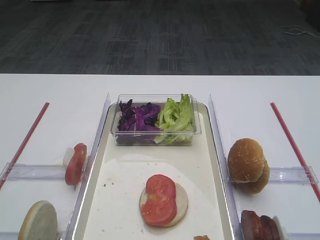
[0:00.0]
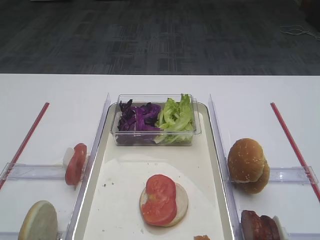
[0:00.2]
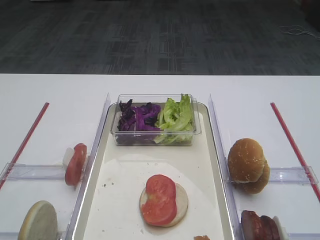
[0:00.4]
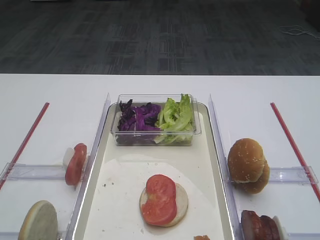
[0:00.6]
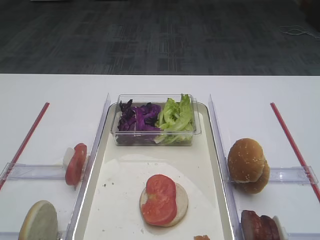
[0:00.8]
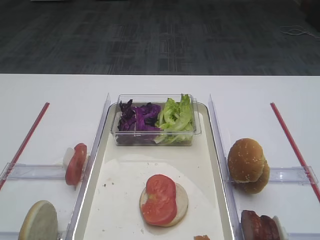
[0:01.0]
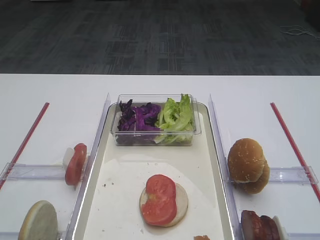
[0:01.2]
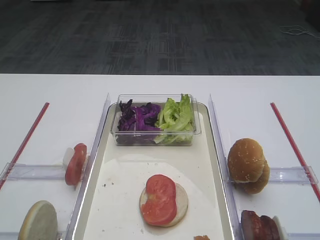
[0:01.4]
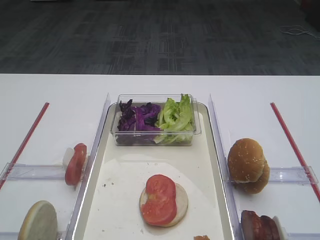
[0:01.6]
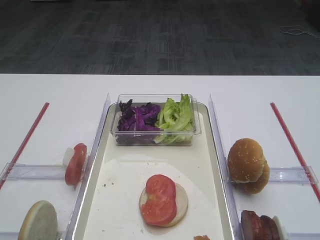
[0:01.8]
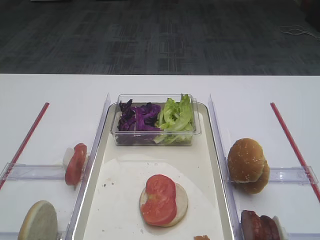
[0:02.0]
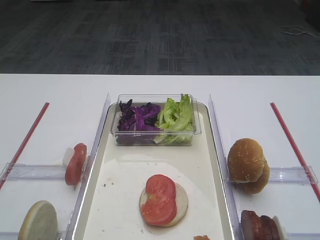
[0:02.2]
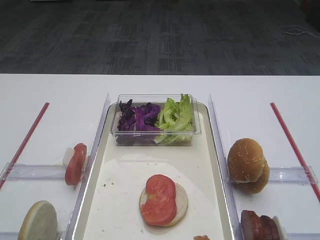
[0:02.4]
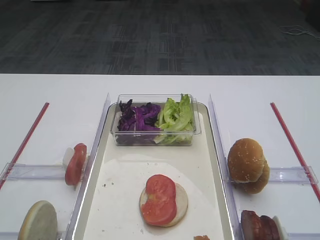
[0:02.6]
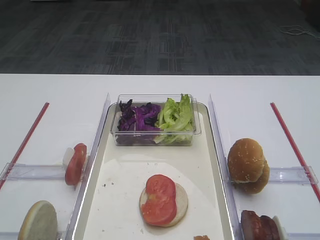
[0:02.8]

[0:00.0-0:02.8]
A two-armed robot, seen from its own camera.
0:01.4 to 0:02.8: The two grippers keep their place.

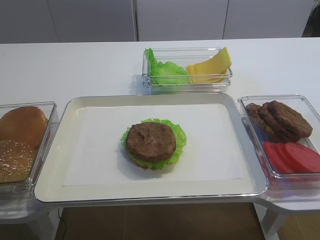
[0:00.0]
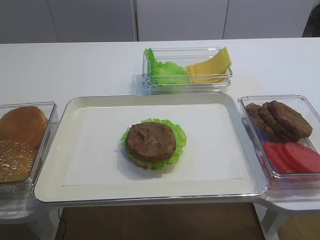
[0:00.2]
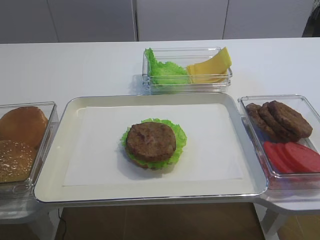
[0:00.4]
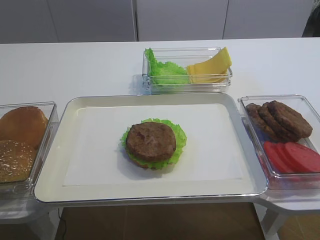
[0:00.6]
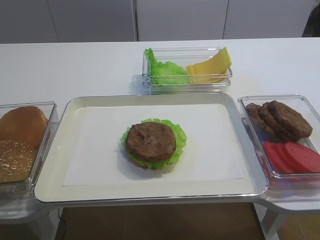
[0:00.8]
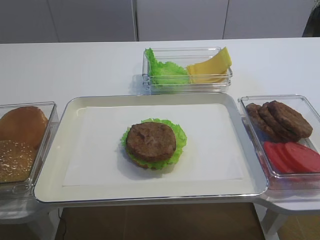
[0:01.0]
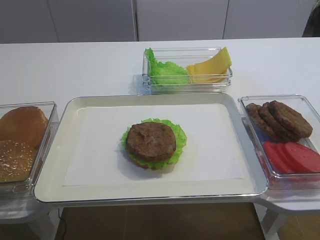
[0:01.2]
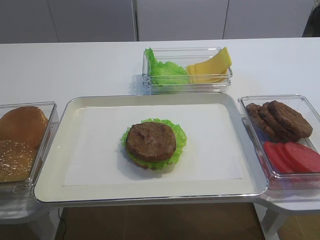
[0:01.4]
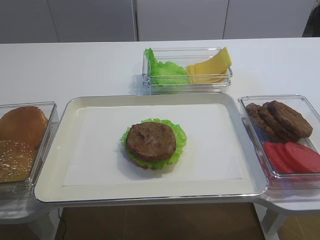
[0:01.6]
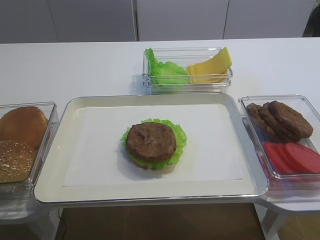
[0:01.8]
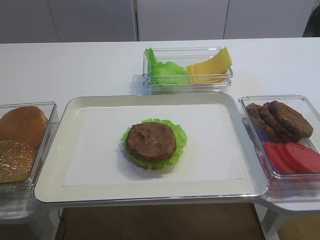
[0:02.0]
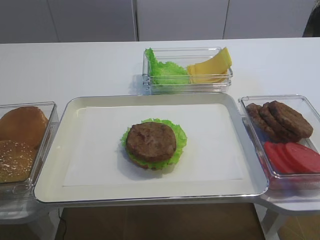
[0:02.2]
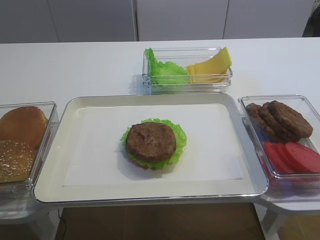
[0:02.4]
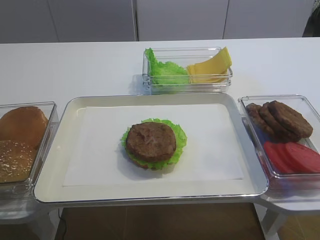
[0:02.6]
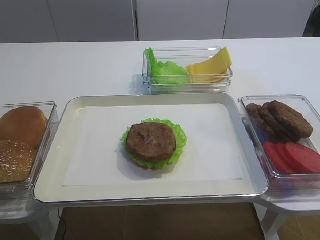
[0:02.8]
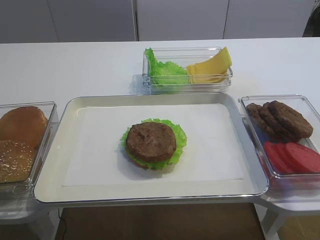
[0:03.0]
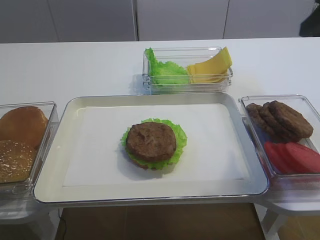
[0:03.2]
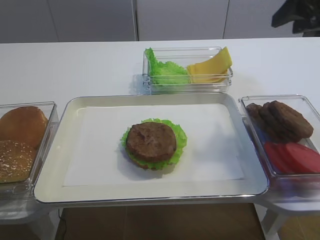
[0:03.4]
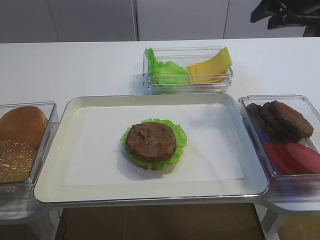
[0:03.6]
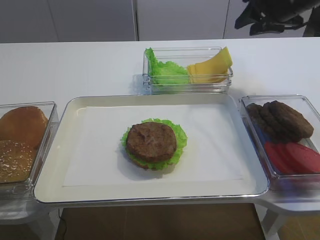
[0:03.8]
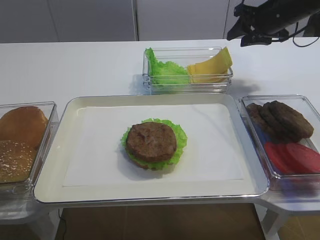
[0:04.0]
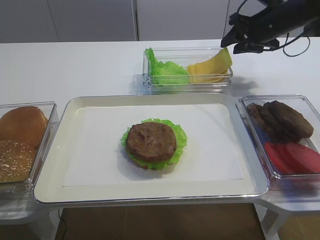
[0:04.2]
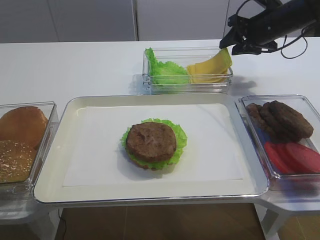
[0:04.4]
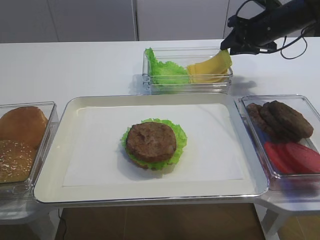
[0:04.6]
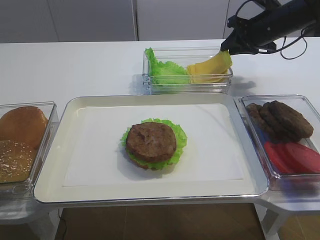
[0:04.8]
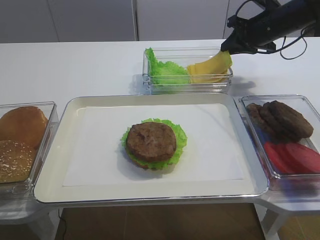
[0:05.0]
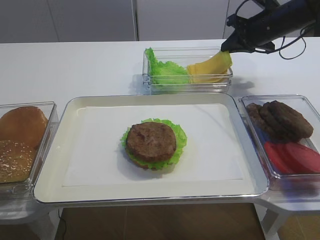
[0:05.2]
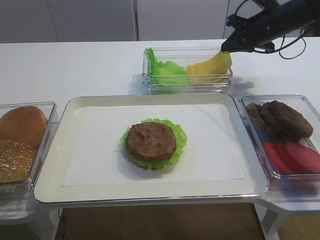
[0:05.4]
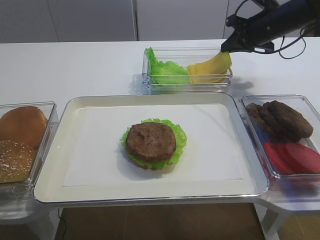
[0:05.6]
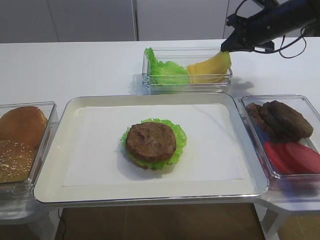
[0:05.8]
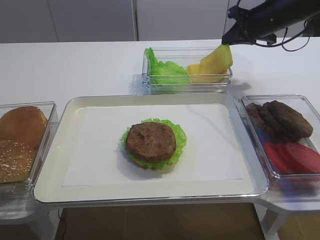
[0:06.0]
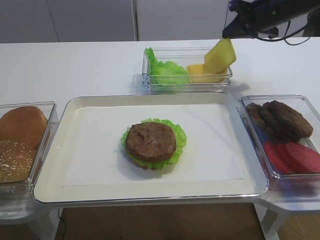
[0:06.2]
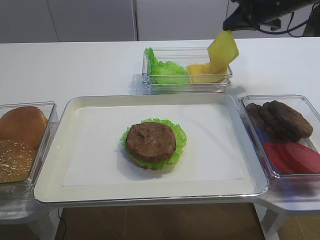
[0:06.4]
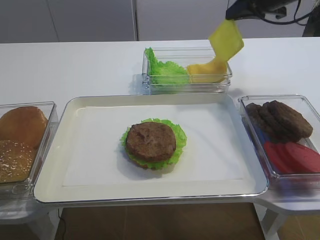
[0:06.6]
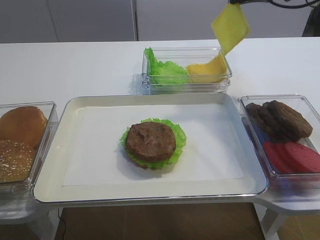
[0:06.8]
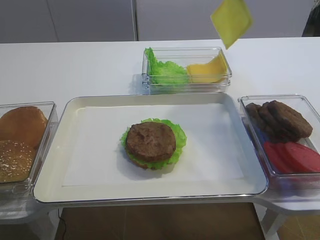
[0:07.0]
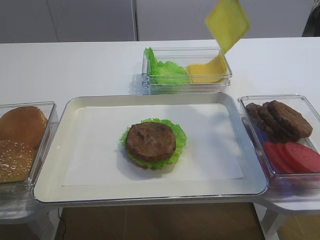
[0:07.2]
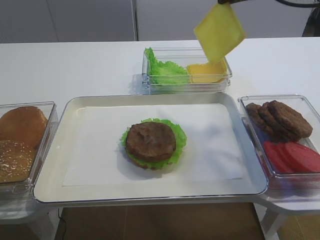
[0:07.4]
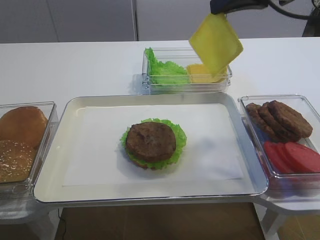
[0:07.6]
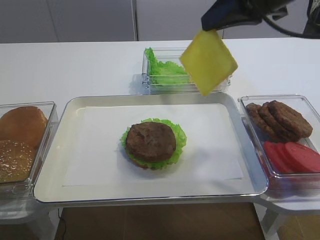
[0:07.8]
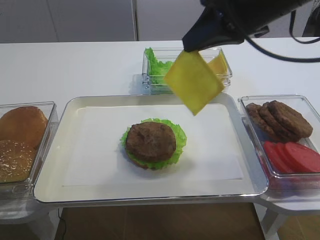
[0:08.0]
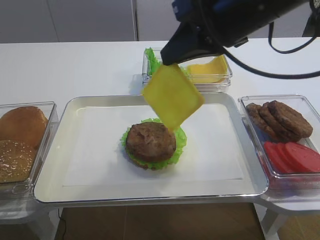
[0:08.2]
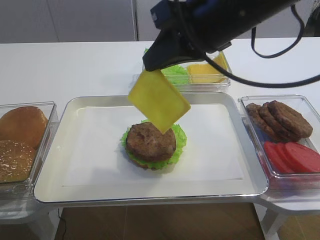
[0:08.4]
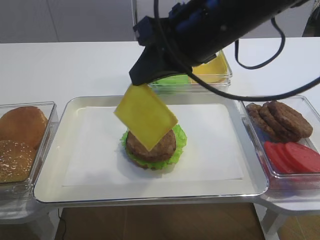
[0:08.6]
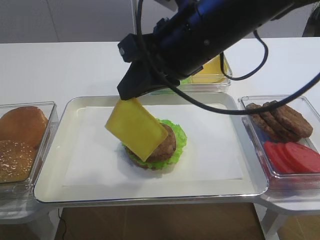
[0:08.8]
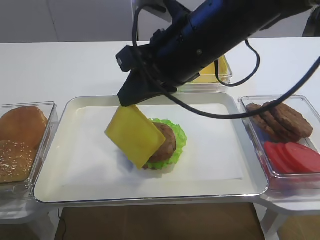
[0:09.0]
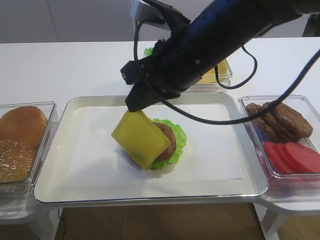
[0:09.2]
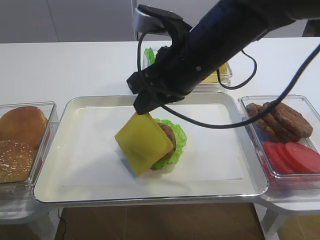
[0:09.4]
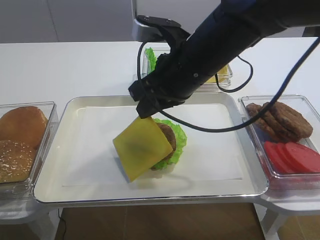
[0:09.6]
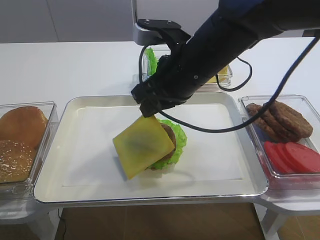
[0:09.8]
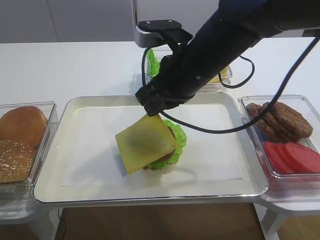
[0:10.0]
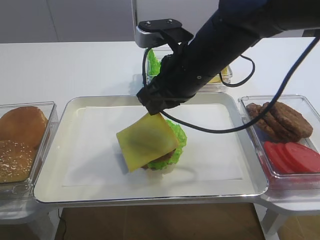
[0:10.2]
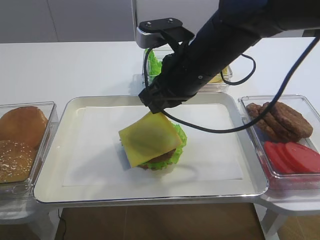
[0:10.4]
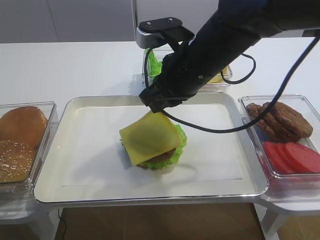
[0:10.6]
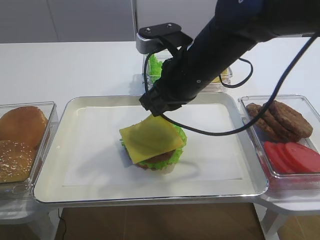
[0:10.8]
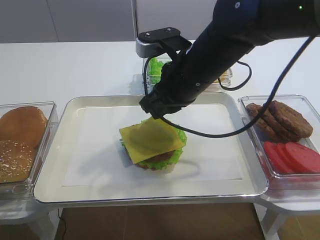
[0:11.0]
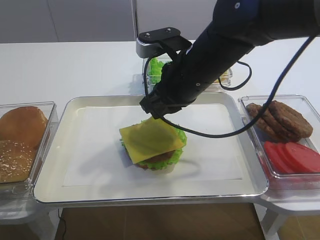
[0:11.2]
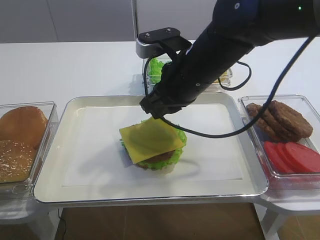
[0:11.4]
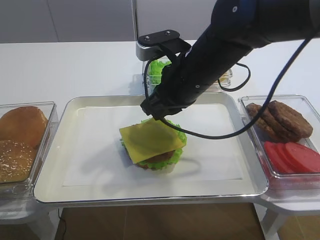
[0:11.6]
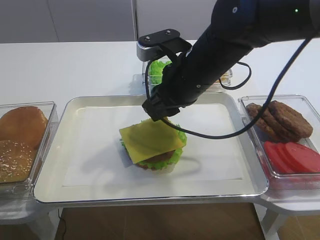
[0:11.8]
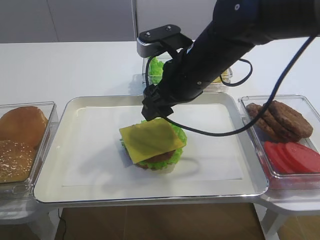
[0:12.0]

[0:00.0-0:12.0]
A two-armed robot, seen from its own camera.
Step, 0:00.0 to 0:06.2: Pick up the cheese slice with the right gripper.
0:01.6 to 0:03.0: The right gripper travels forward and upward by roughly 20 cm.
0:03.0 to 0:04.4: The right gripper moves forward and downward, about 35 cm.
0:04.4 to 0:06.0: The right gripper closes up.
0:06.0 to 0:07.6: The right gripper is displaced backward and upward by roughly 20 cm.
0:07.6 to 0:09.0: The right gripper shifts roughly 15 cm to the left, downward and backward.
0:09.0 to 0:10.4: The right gripper changes place by roughly 5 cm.
0:10.4 to 0:12.0: The right gripper opens.

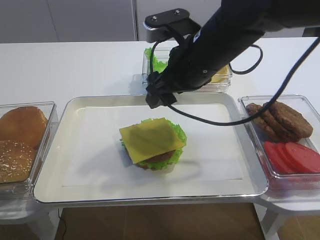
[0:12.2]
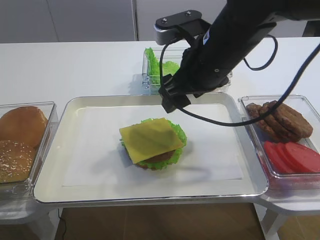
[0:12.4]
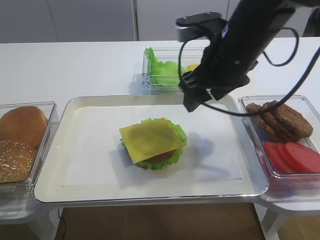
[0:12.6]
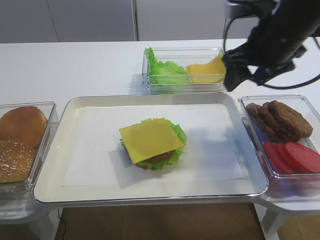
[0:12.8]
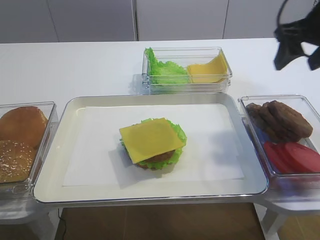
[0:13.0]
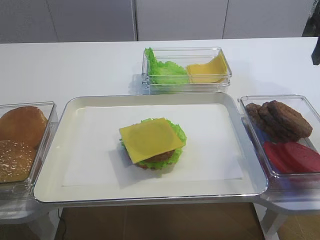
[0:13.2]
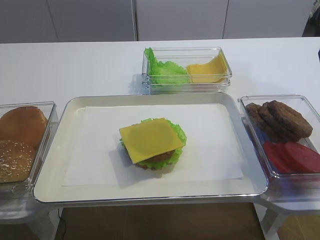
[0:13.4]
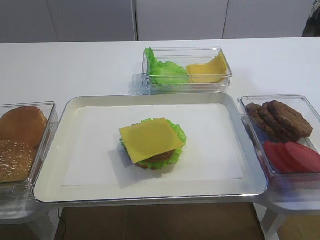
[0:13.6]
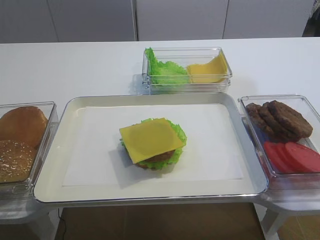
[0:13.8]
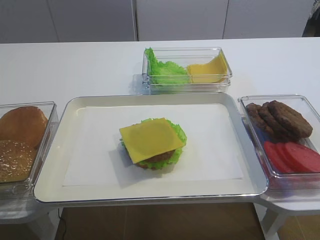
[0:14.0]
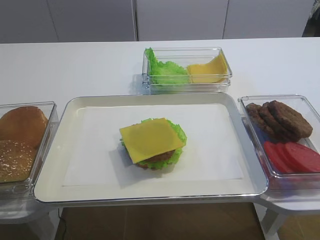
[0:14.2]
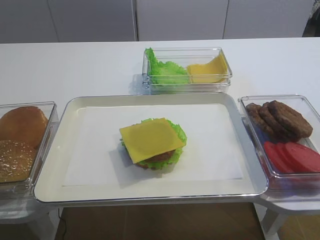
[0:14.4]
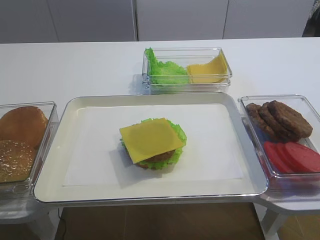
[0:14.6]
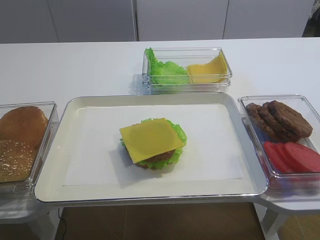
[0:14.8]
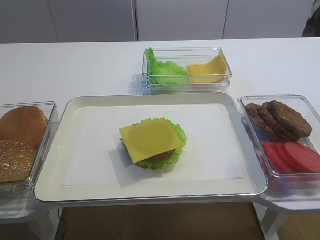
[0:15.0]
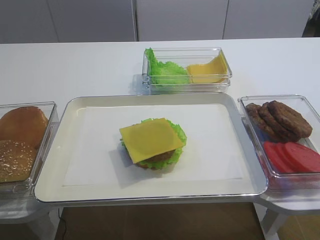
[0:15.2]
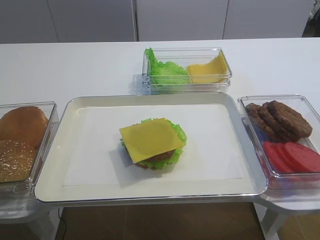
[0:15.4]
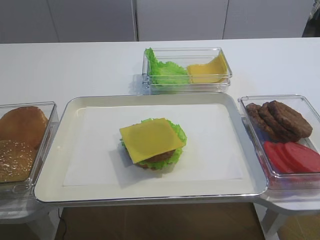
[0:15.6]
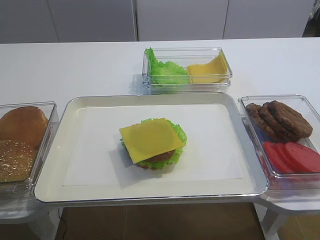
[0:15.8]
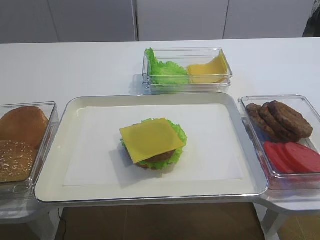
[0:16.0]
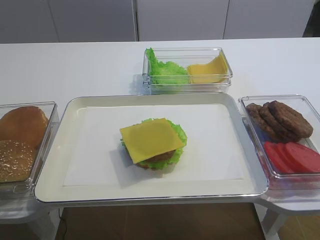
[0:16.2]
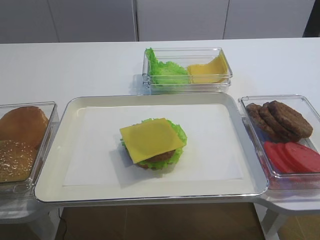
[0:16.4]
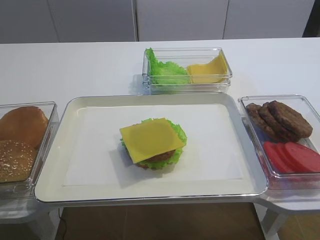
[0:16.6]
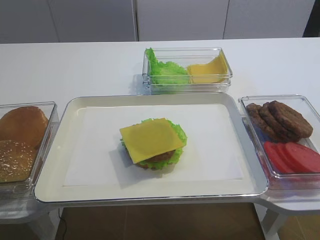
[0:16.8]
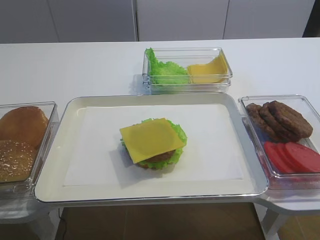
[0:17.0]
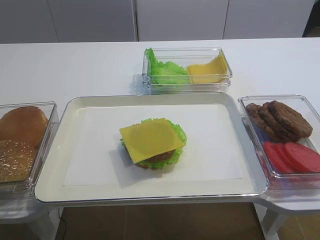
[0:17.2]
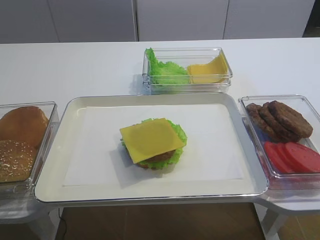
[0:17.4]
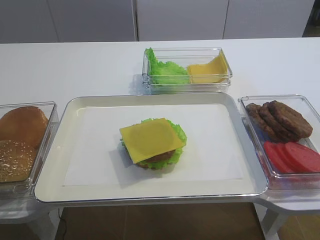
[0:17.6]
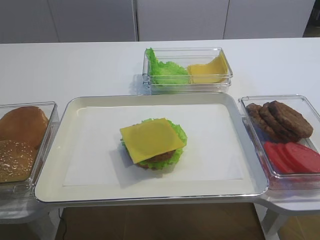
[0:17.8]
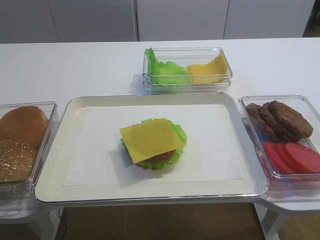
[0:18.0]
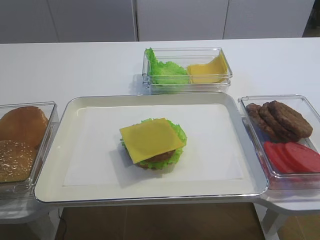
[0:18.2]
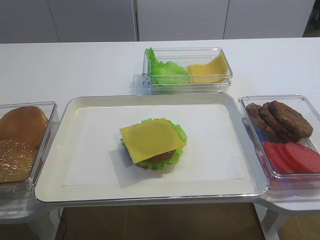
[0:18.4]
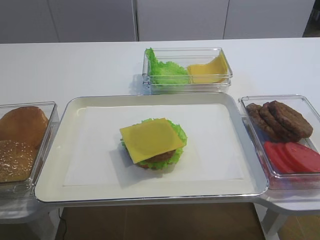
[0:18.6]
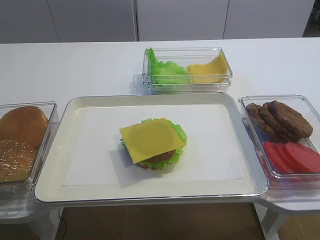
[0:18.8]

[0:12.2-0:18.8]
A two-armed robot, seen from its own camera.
0:12.2 to 0:13.8: The right gripper is displaced to the right by about 20 cm.
0:13.8 to 0:15.4: The right gripper heads backward, covering approximately 25 cm.
0:17.2 to 0:18.8: Both grippers stay put.
